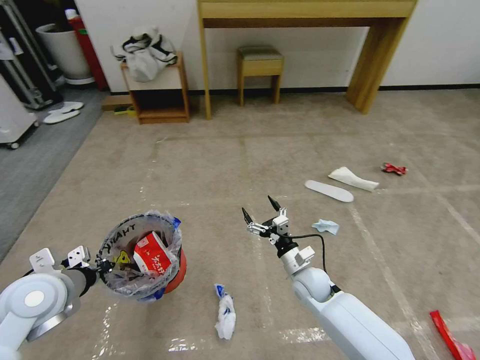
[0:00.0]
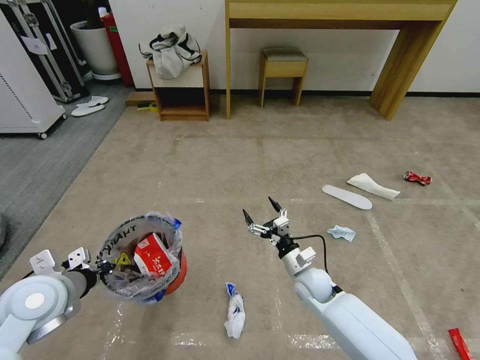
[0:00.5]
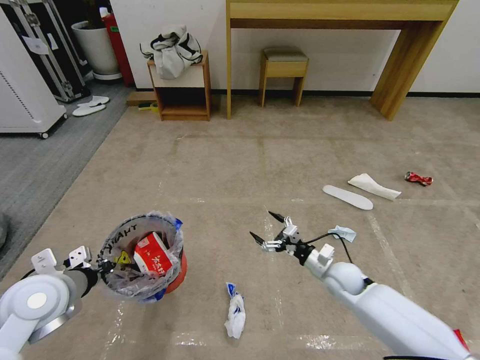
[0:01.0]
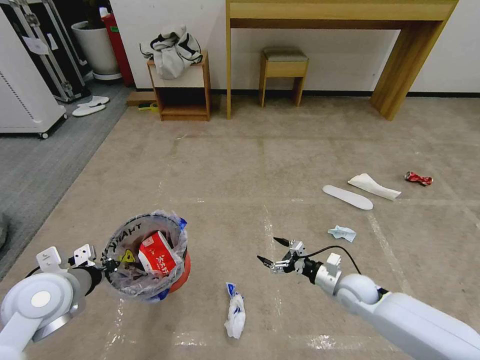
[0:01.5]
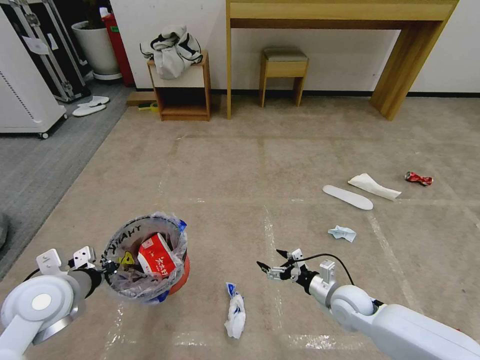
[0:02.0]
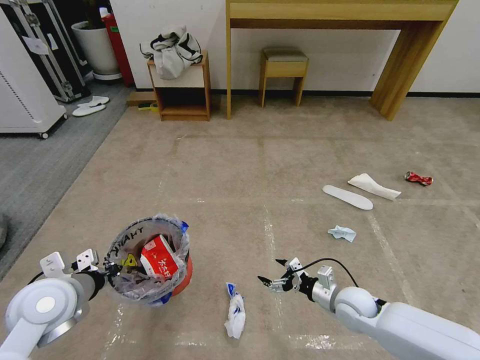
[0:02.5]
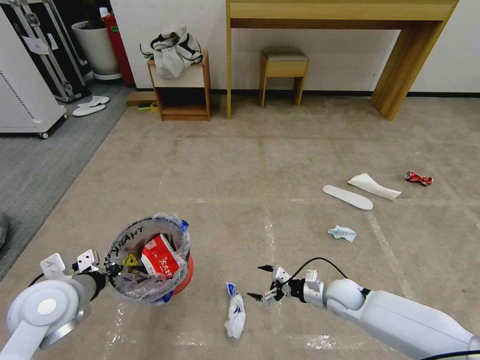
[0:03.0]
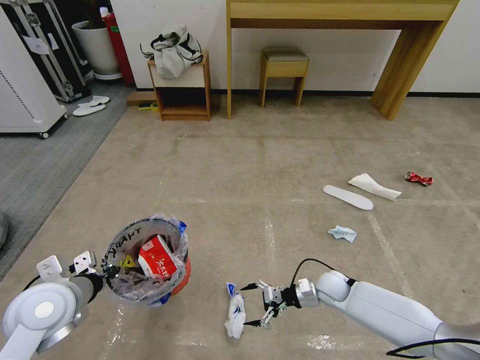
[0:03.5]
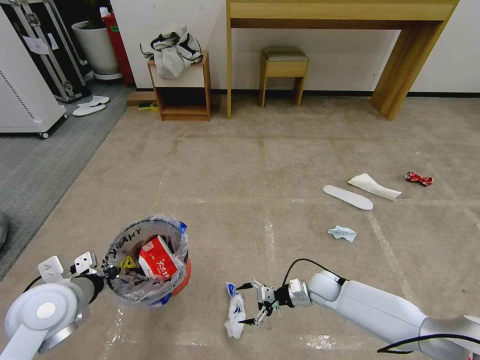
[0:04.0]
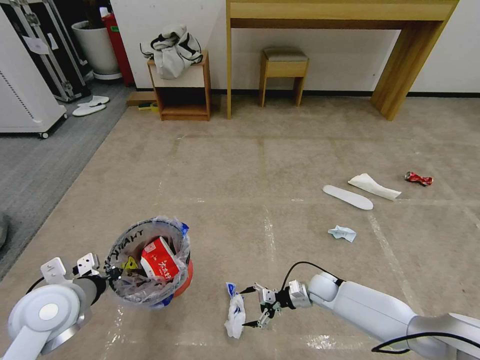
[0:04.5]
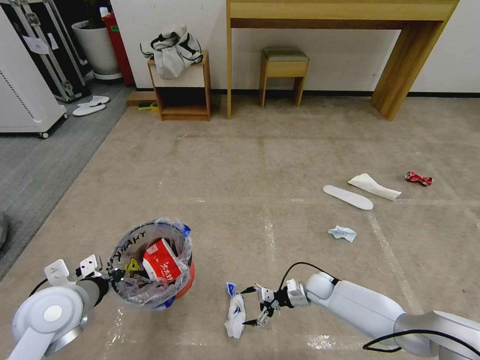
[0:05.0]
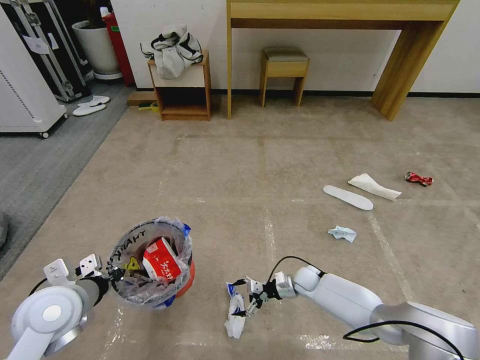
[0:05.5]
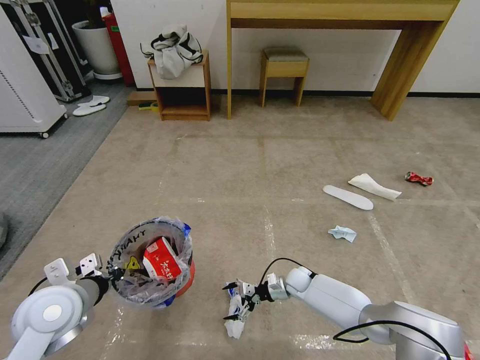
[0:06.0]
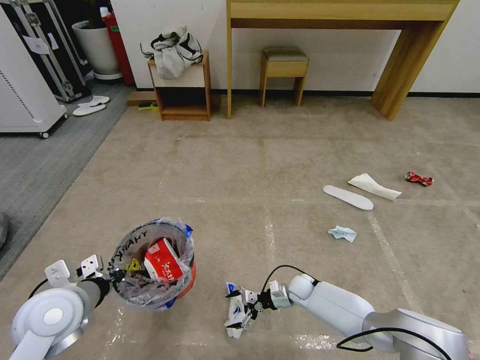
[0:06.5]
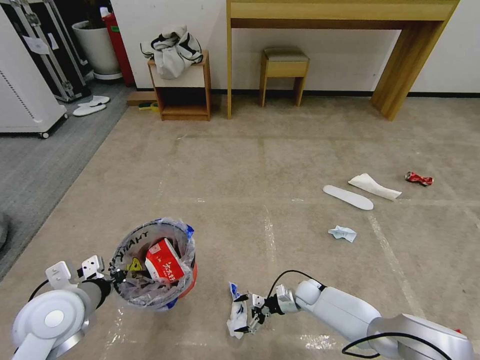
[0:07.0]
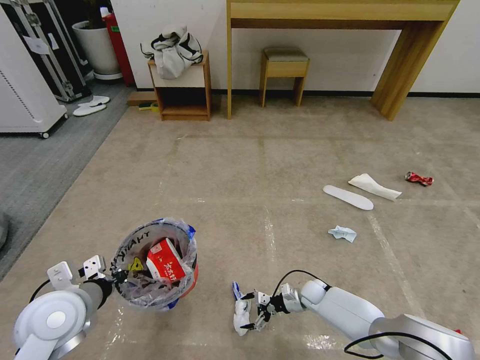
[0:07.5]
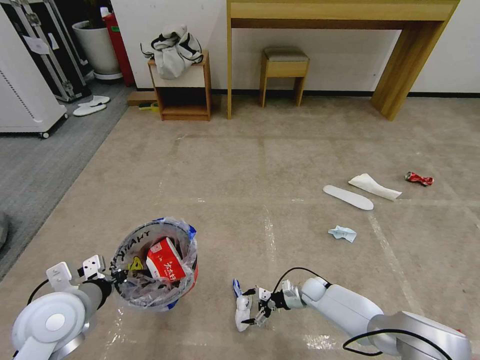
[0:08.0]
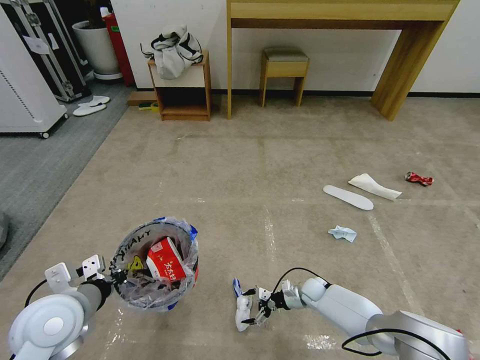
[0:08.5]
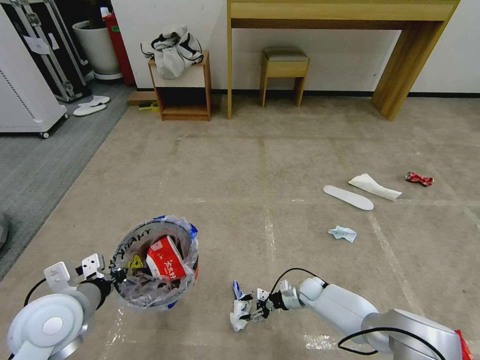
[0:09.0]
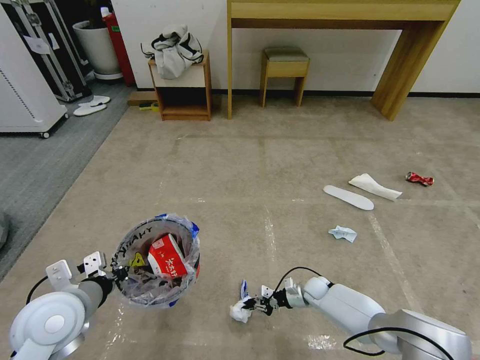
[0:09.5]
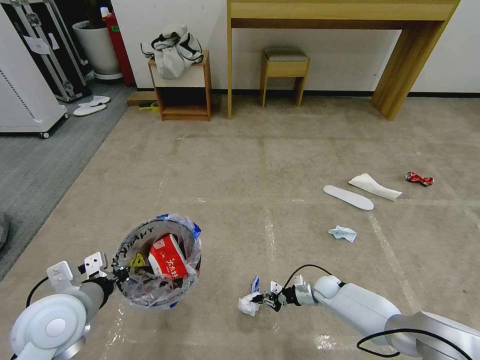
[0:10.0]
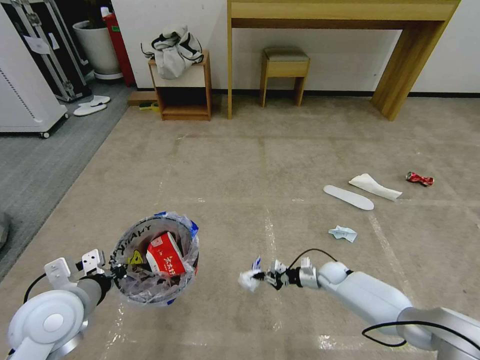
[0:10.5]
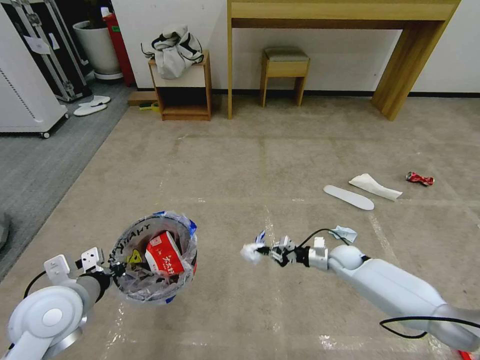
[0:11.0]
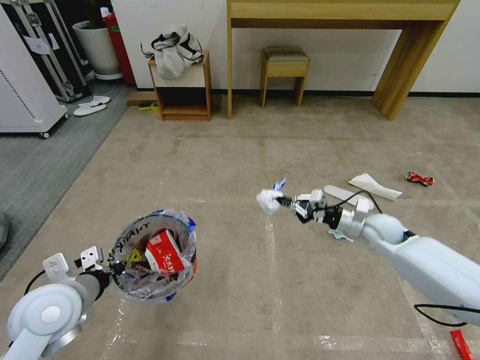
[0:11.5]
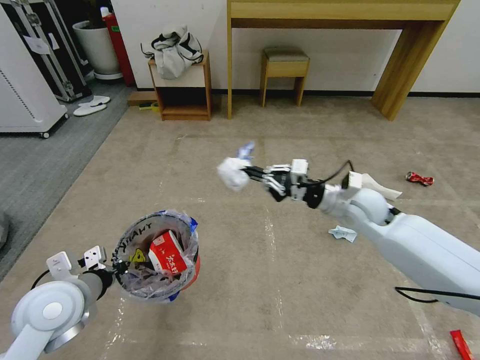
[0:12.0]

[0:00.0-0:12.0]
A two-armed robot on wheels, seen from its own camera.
Task of the whole recording: Pick up the trash bin and place the garbage on the floor into it.
0:00.0 to 0:02.0: The right gripper moves to the right and backward, roughly 10 cm.
0:02.0 to 0:04.0: The right gripper heads downward and forward, covering about 10 cm.
0:04.0 to 0:06.0: The right gripper shifts about 10 cm downward and to the left.
0:06.0 to 0:08.0: The right gripper travels to the right by some 5 cm.
0:08.0 to 0:10.0: The right gripper closes.
0:10.0 to 0:12.0: The right gripper goes approximately 35 cm upward.

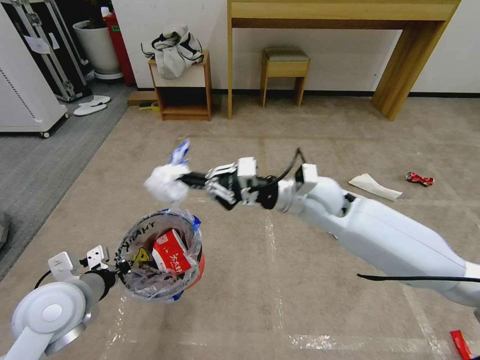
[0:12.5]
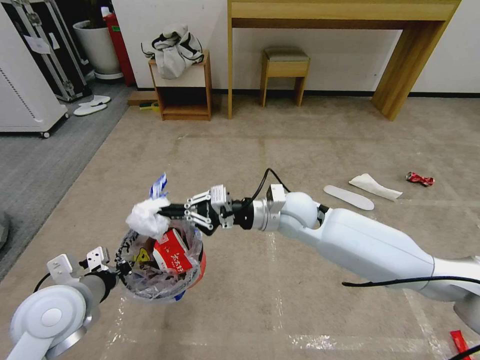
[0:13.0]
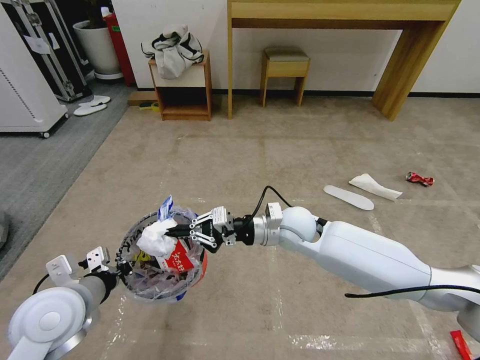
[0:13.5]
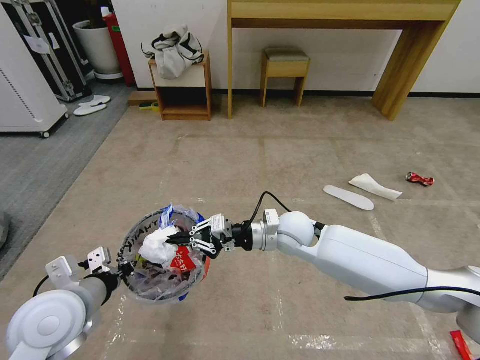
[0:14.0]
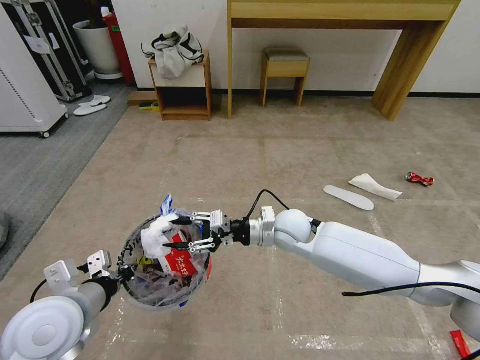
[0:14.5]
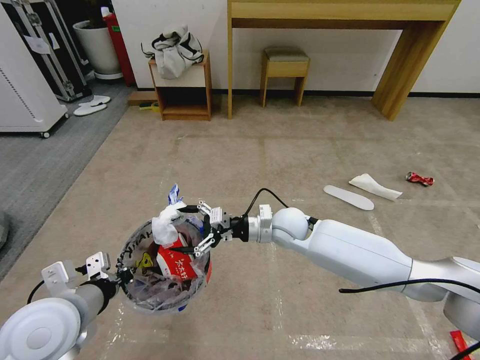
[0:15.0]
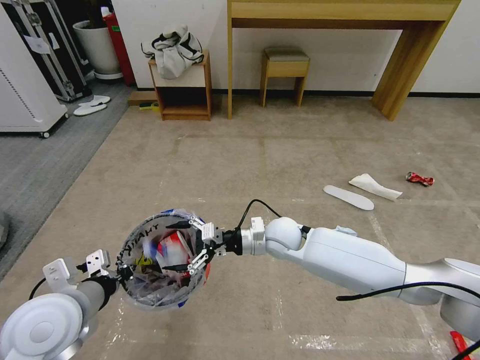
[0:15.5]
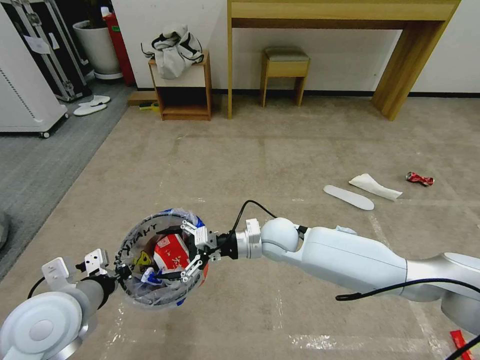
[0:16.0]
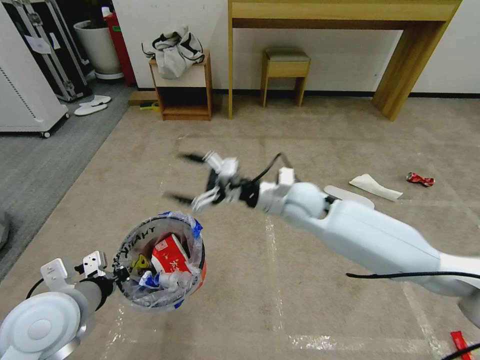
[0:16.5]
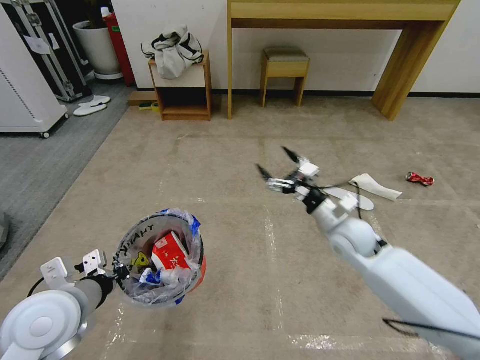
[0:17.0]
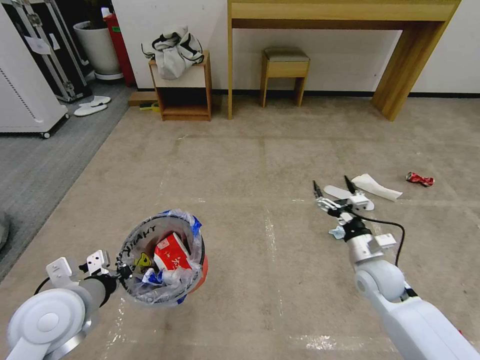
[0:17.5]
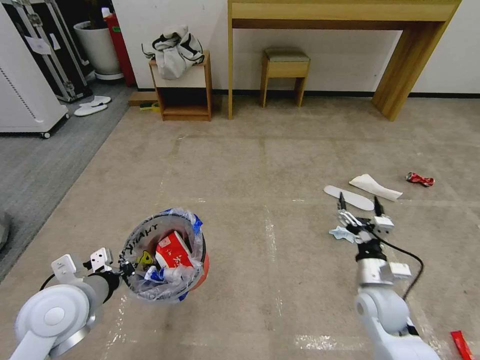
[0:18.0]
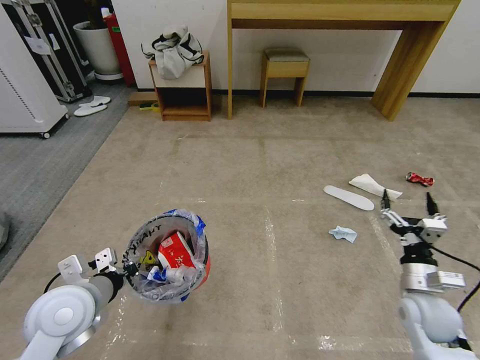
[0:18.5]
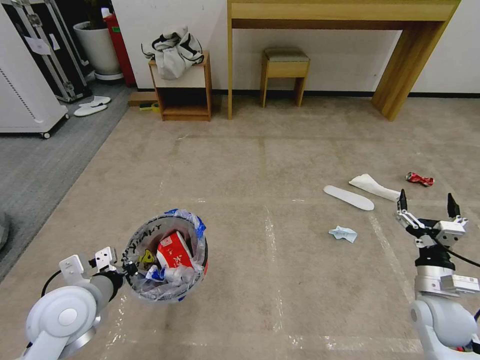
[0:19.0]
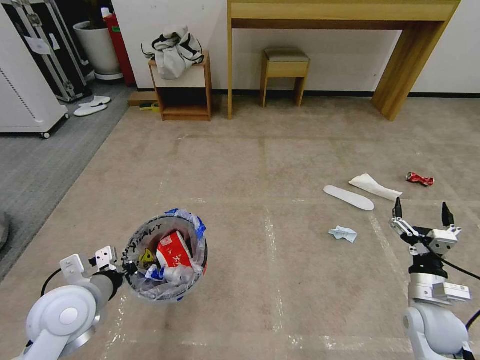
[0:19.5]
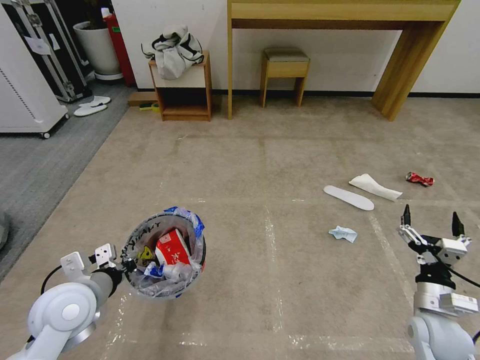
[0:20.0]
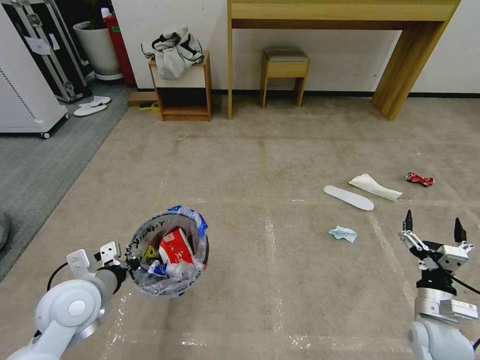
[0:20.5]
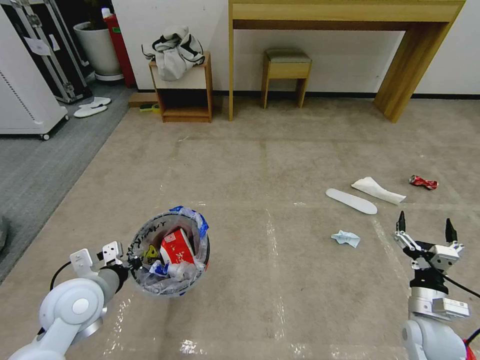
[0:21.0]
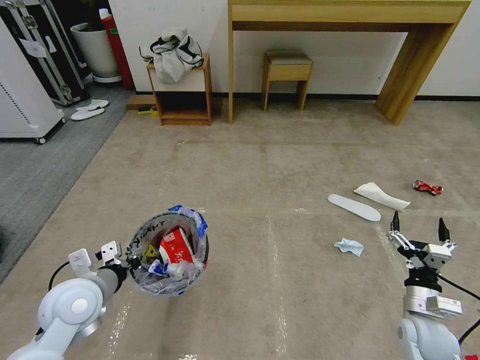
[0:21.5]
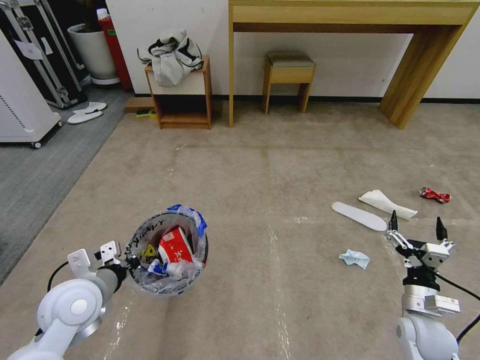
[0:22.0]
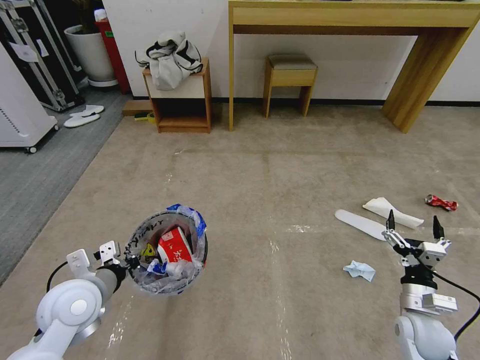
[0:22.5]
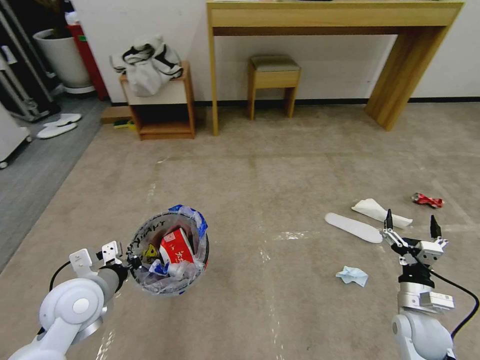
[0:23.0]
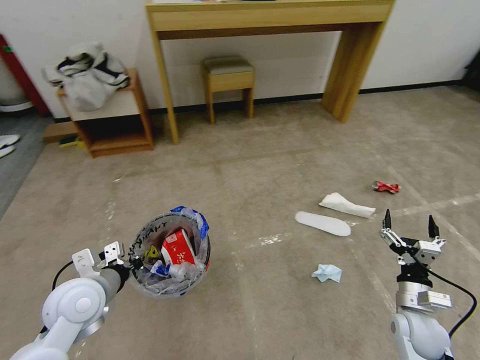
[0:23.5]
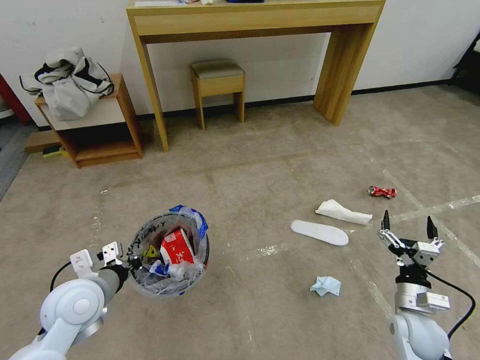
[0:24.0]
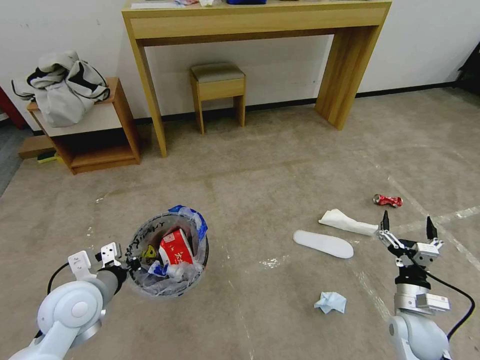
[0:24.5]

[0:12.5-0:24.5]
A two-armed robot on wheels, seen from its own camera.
Task of the whole recording: Pick up the trash bin and place the garbage on the floor into it.
0:12.5 to 0:14.5: The right gripper travels downward by about 10 cm, and opens its fingers.
0:14.5 to 0:16.5: The right gripper heads upward, covering roughly 10 cm, and opens.
0:16.5 to 0:18.5: The right gripper is displaced to the right, backward and downward by some 35 cm.
0:18.5 to 0:20.5: The right gripper shifts by some 5 cm.

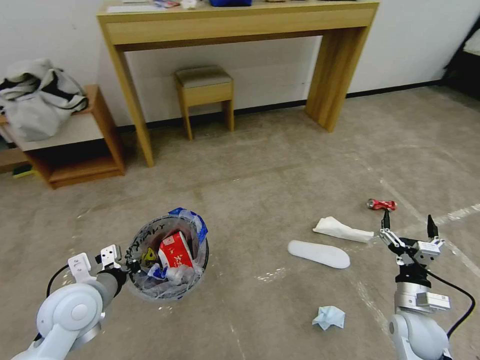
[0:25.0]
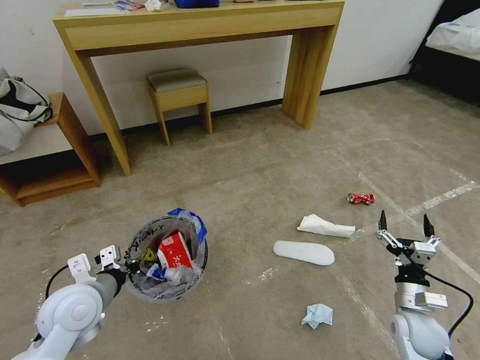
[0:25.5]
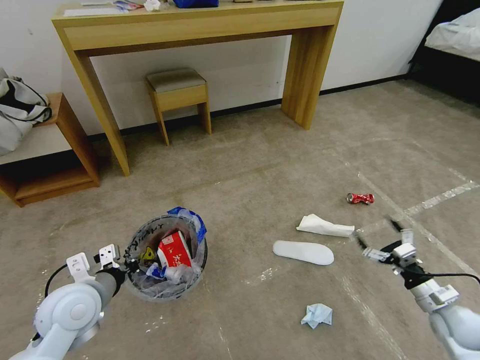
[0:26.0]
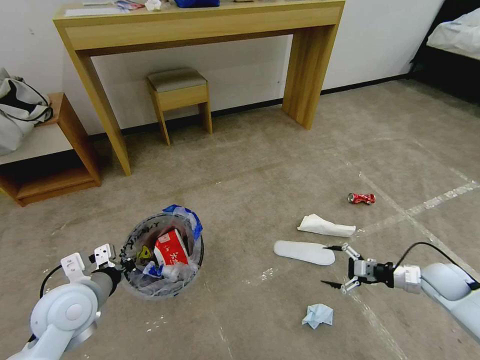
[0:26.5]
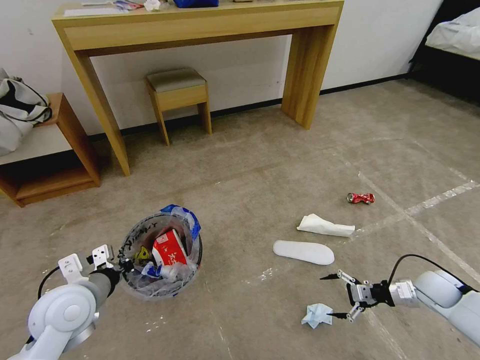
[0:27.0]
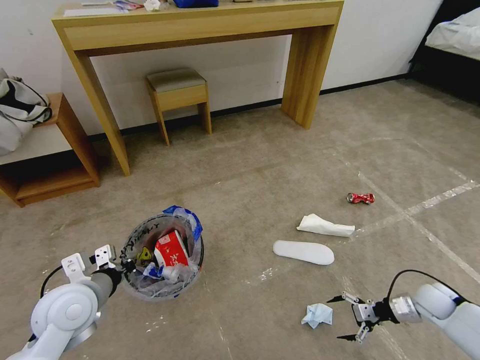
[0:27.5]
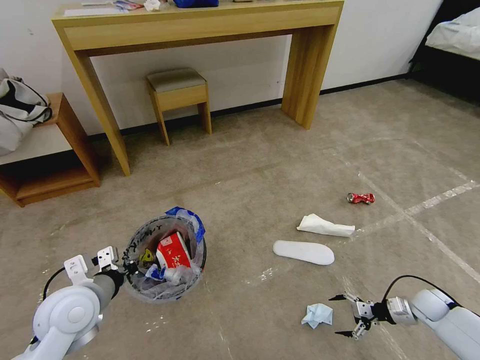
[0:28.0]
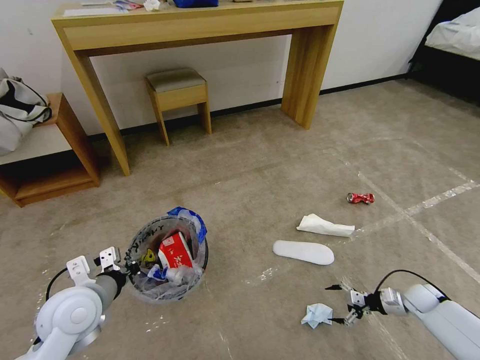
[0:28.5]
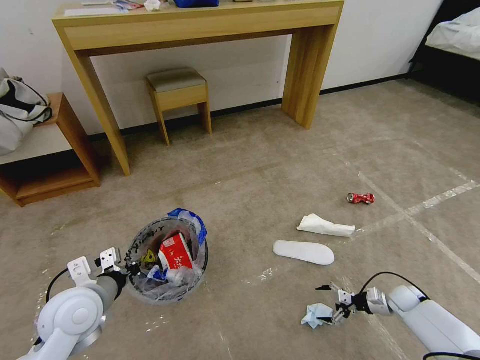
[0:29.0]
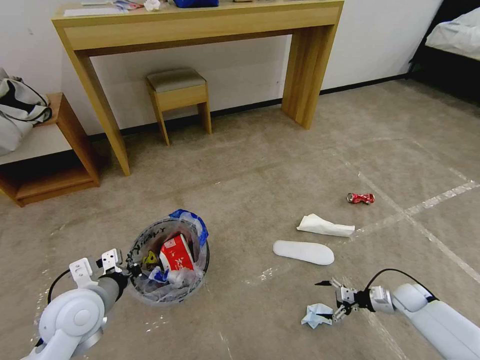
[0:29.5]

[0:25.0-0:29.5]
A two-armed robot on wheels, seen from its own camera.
Task of the whole recording: Pick up the trash bin and place the garbage on the floor into it.
0:25.0 to 0:27.0: The right gripper travels to the right and forward by some 15 cm.
0:27.0 to 0:29.5: The right gripper heads downward, covering about 10 cm.
